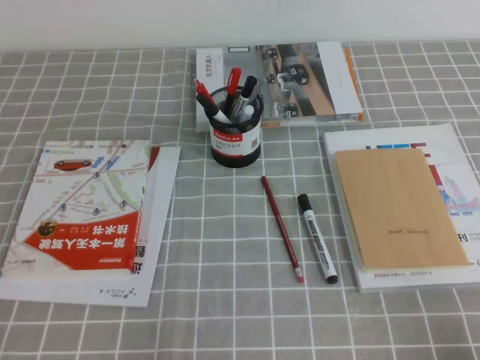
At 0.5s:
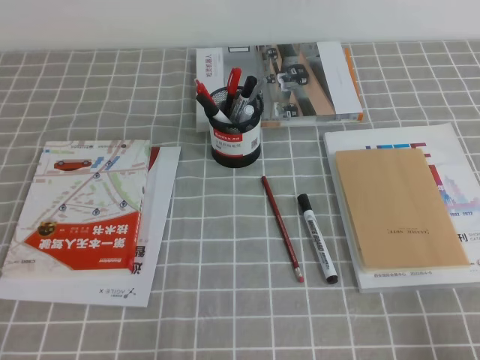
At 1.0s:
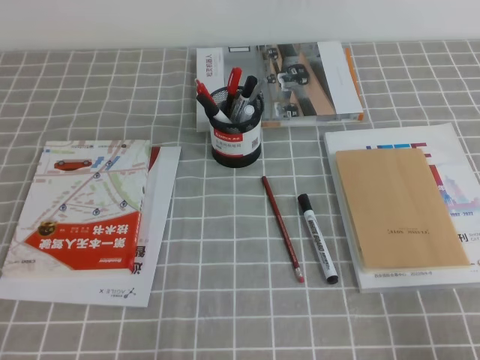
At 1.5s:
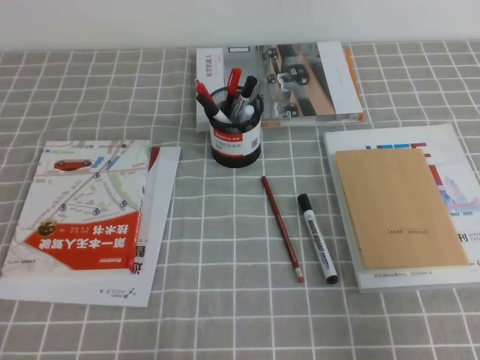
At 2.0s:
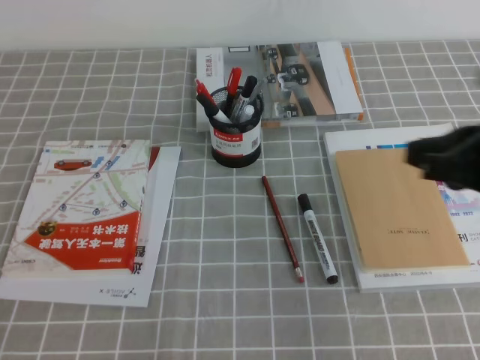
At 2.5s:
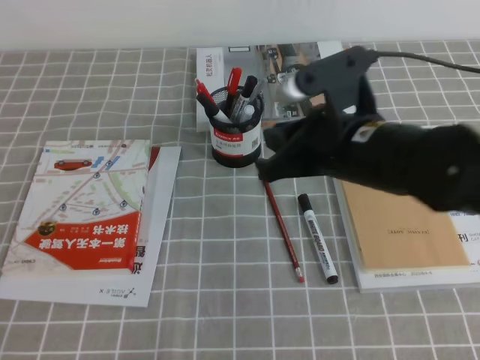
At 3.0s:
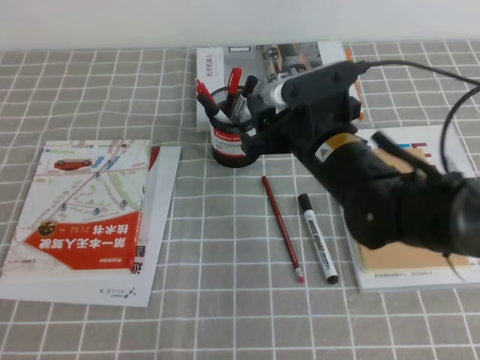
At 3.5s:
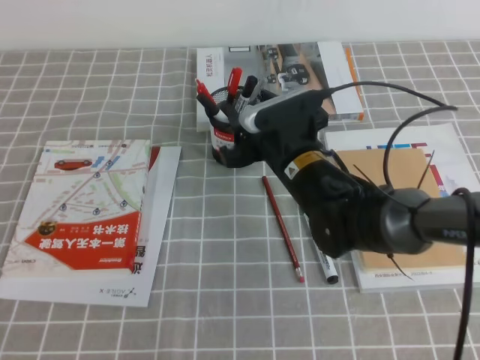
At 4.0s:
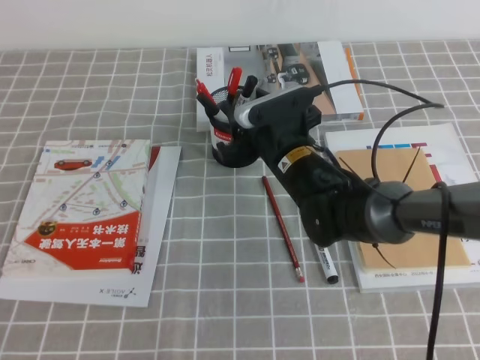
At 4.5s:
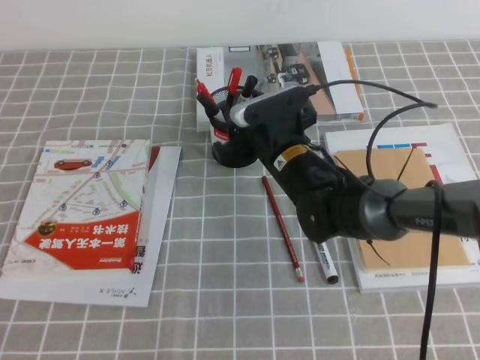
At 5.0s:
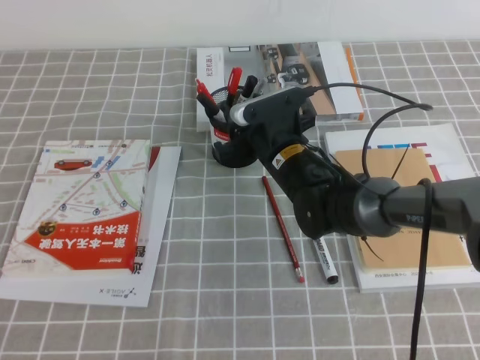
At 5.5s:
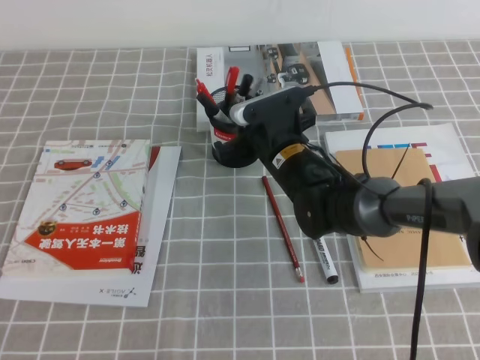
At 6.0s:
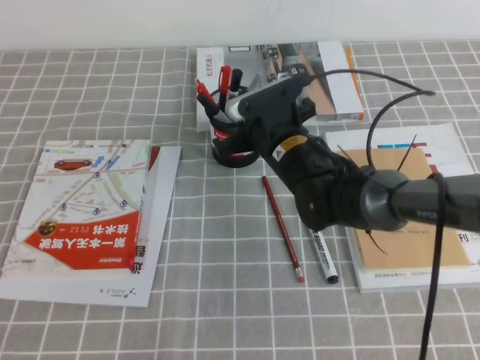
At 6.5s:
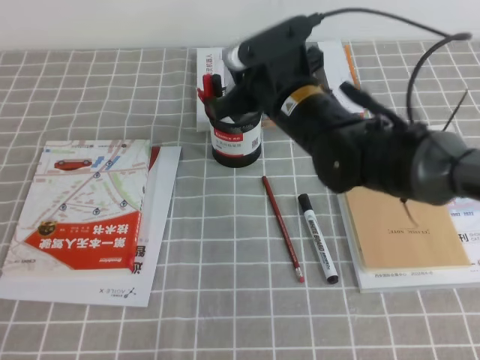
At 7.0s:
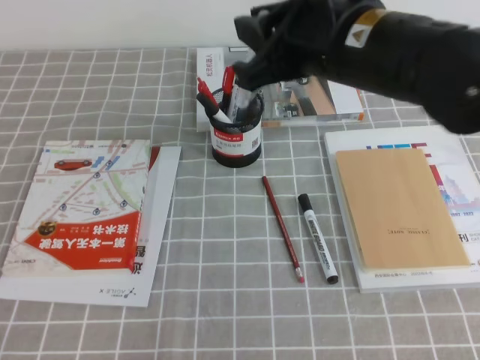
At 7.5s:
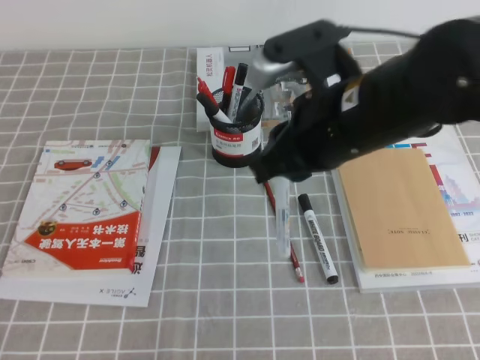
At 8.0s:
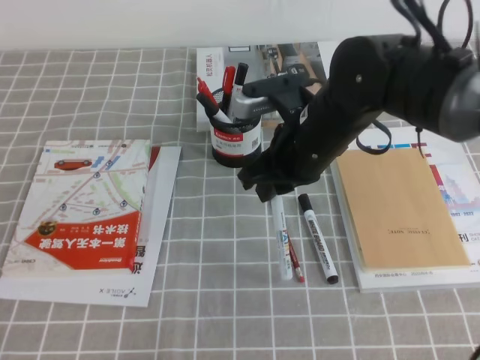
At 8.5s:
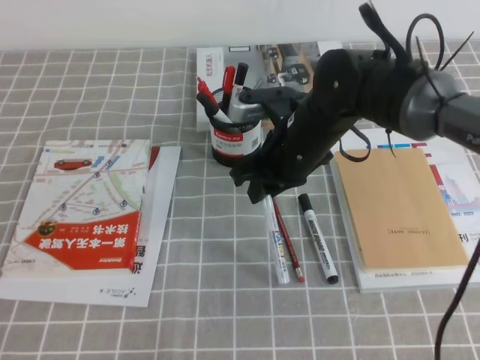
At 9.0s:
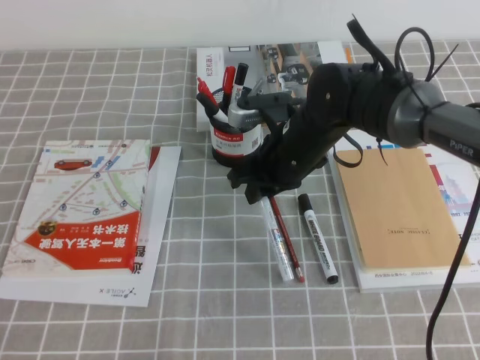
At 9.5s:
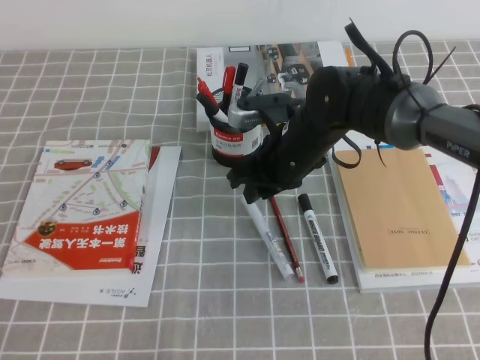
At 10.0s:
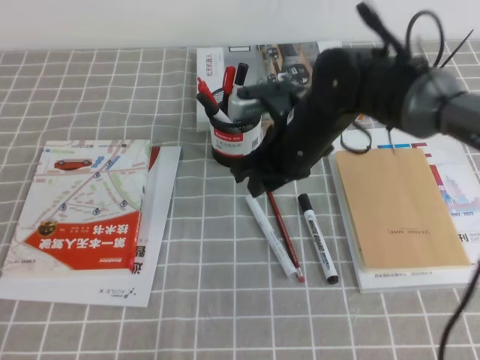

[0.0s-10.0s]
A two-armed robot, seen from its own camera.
0.0s to 2.0s: The right gripper heads forward, upward and to the left, covering about 25 cm.
2.0s to 4.0s: The right gripper goes approximately 30 cm to the left, forward and downward, and opens up.
4.0s to 6.0s: The right gripper closes its fingers.
6.0s to 8.0s: The right gripper is displaced upward and backward by approximately 10 cm.

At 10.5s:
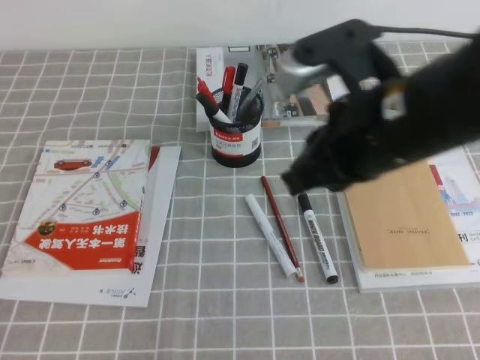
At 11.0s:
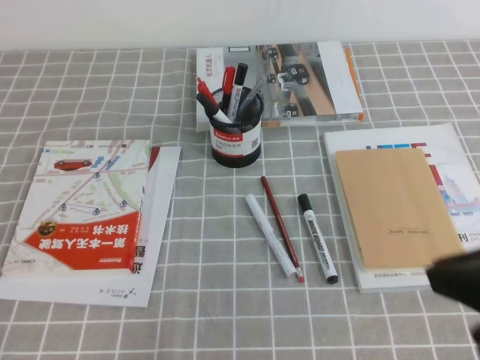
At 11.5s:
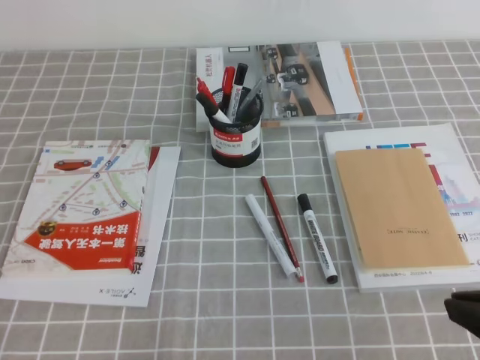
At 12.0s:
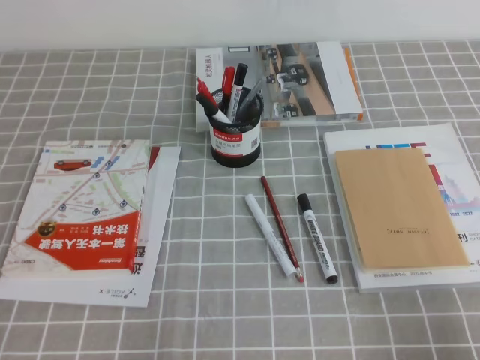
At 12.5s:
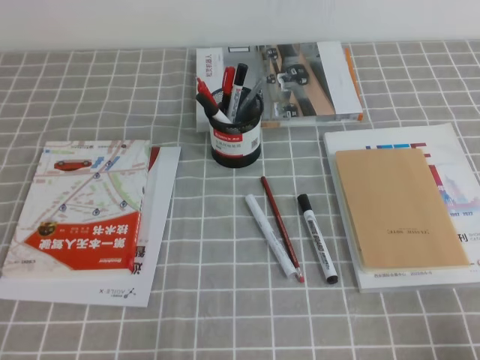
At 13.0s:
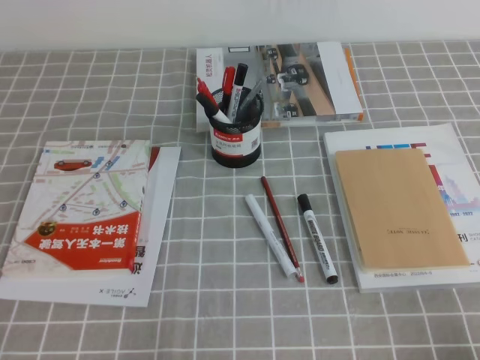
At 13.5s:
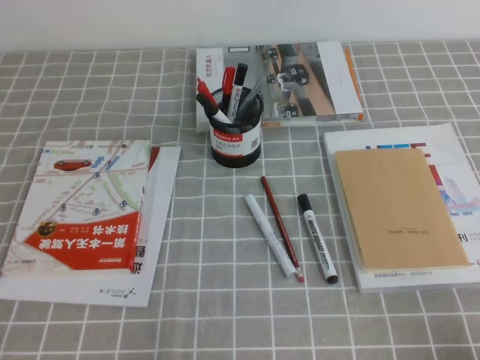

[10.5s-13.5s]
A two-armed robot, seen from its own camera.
Step, 10.5s to 13.5s: Pick up the pen from the pen holder.
10.5s to 12.0s: The right gripper moves to the right, backward and downward, roughly 30 cm.

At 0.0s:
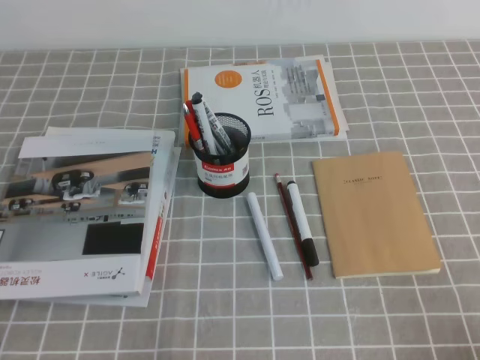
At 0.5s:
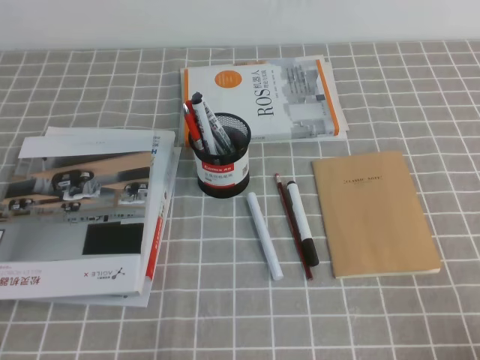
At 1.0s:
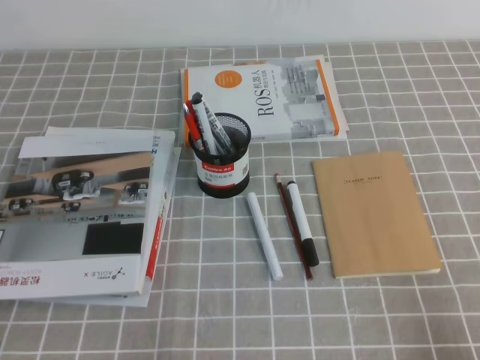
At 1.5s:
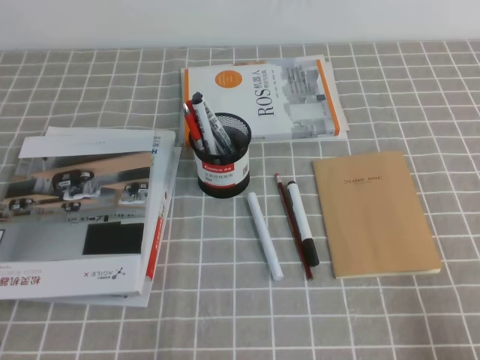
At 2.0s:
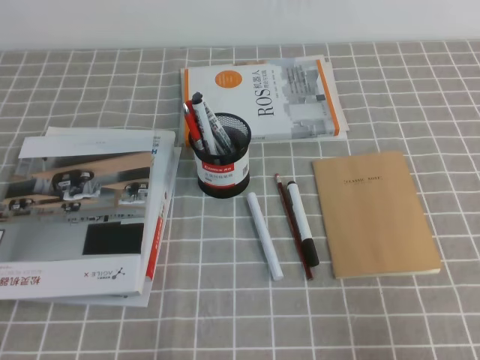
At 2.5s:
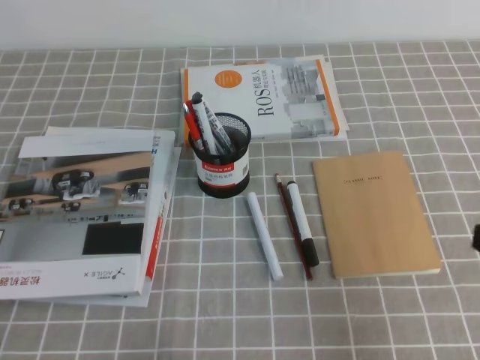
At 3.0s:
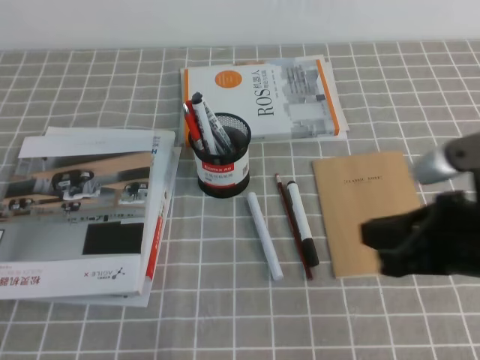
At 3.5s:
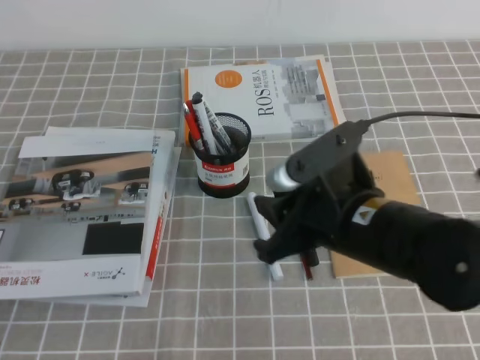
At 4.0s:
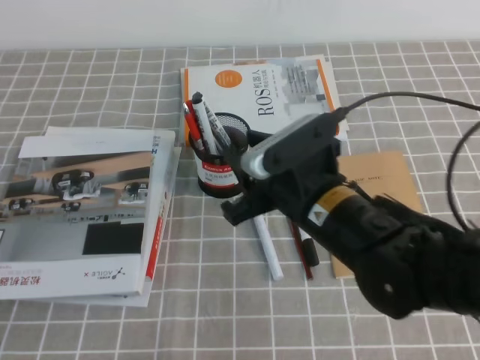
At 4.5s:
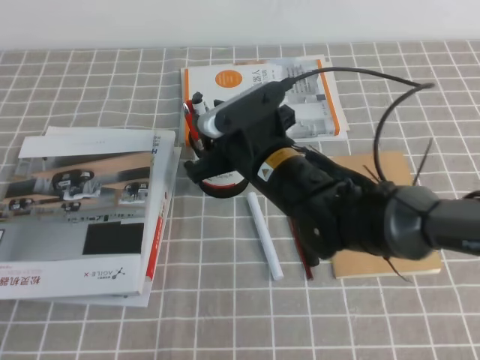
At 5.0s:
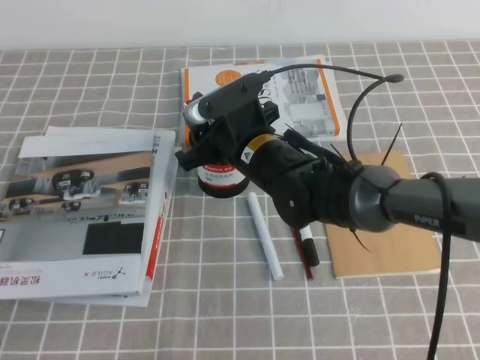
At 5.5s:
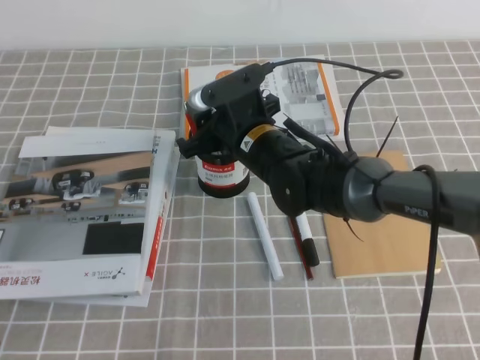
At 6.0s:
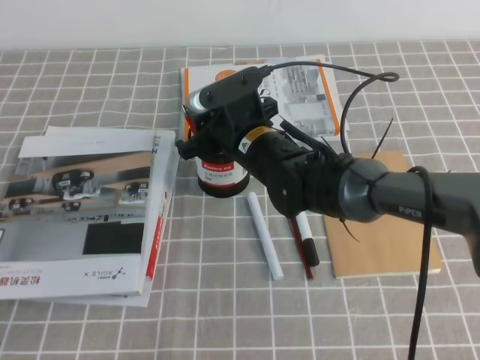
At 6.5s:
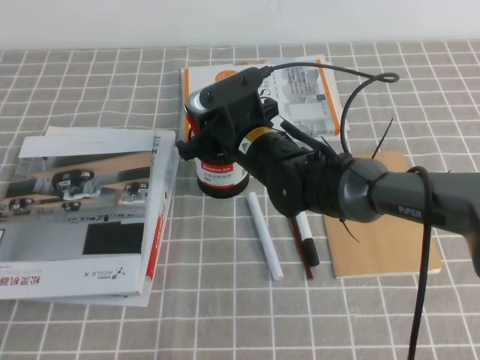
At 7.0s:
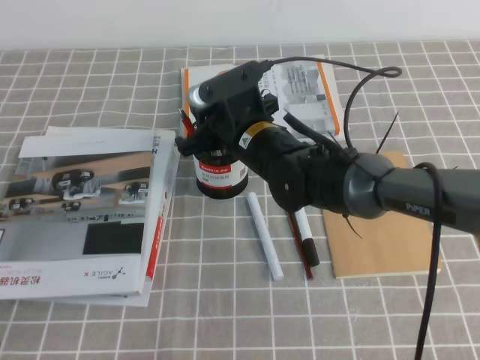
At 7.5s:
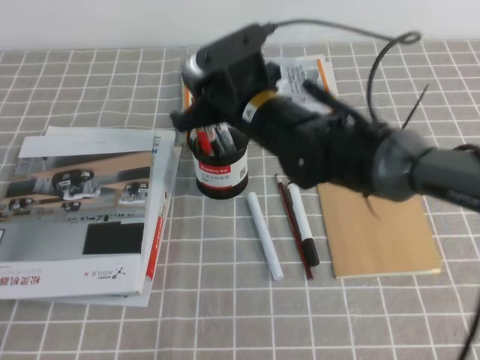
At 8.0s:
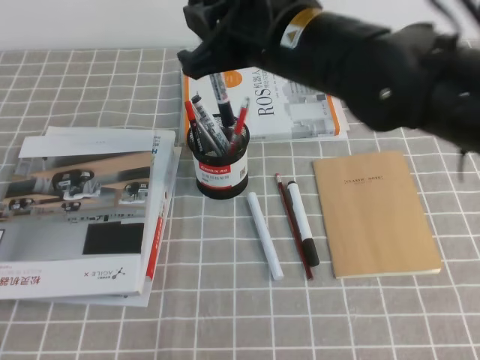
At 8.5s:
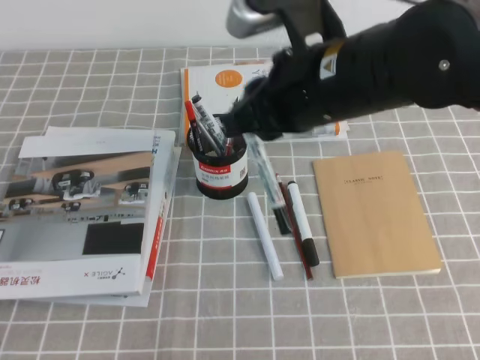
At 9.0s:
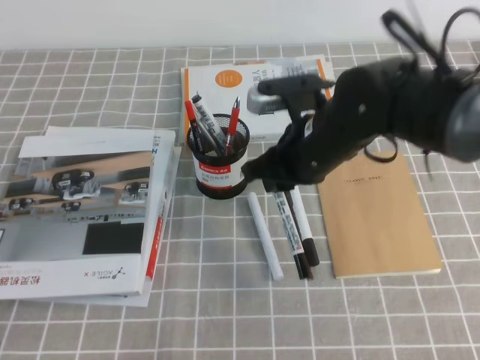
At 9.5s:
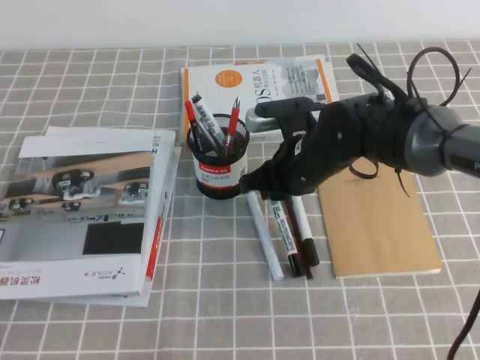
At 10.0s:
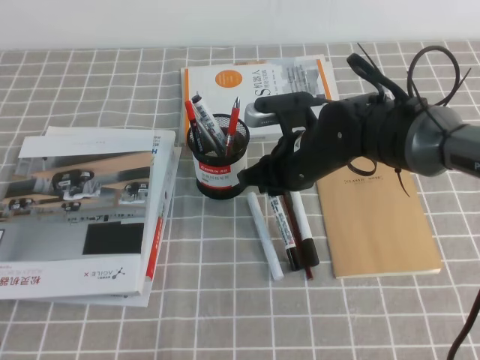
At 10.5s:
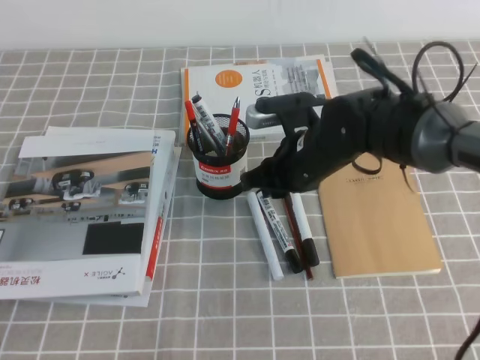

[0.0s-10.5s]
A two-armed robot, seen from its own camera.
0.0s to 2.0s: The right gripper goes some 10 cm upward.
2.0s to 4.0s: The right gripper is displaced to the left and forward by some 30 cm, and opens its fingers.
4.0s to 6.5s: The right gripper shifts approximately 15 cm forward and to the left, and closes up.
6.5s to 8.5s: The right gripper travels upward, backward and to the right by roughly 20 cm.
8.5s to 10.5s: The right gripper shifts some 15 cm downward and forward.

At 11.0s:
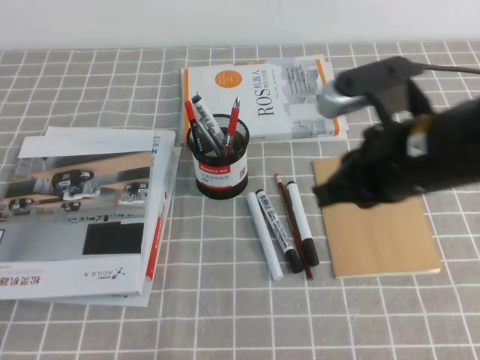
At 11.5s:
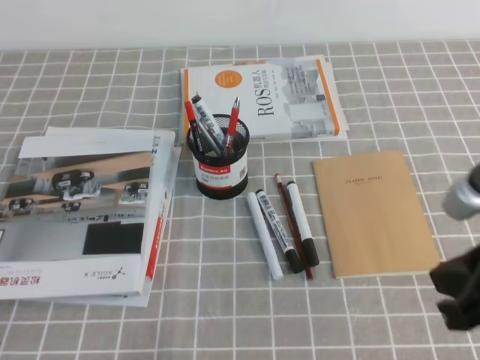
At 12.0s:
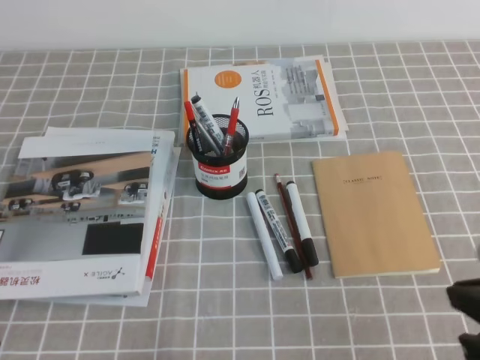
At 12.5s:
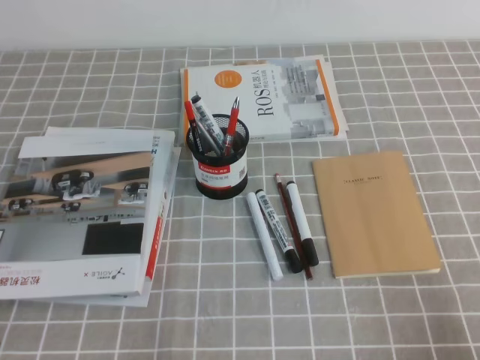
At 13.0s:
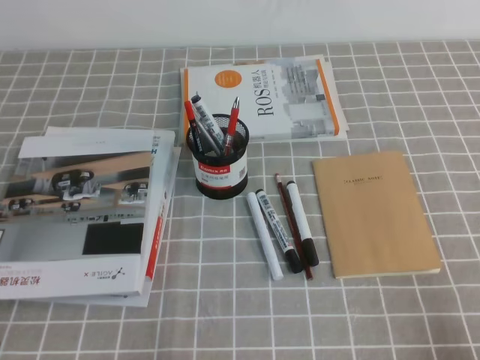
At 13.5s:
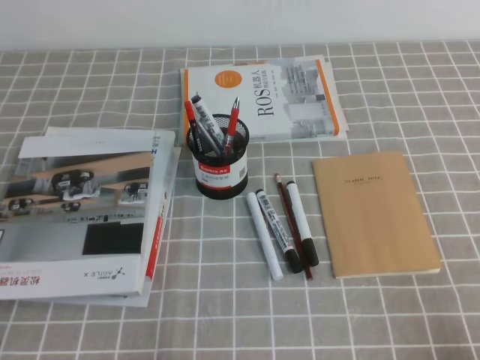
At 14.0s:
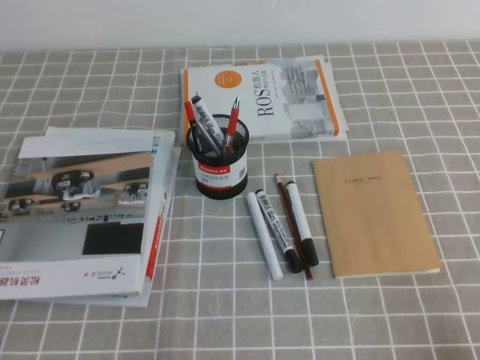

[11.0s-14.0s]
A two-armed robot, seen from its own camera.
Step, 11.0s to 14.0s: Pick up the pen from the pen holder.
11.0s to 12.5s: The right gripper shifts some 25 cm backward, to the right and downward.
